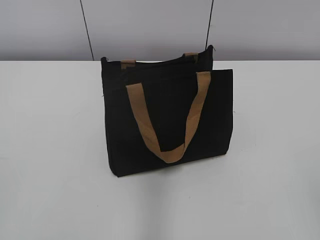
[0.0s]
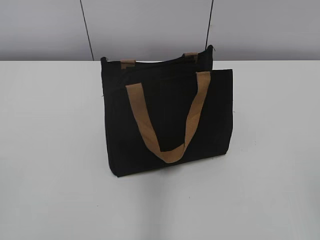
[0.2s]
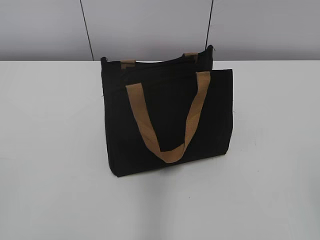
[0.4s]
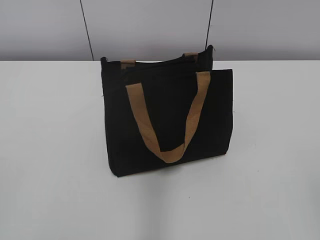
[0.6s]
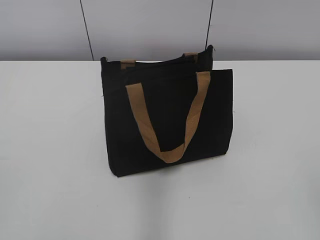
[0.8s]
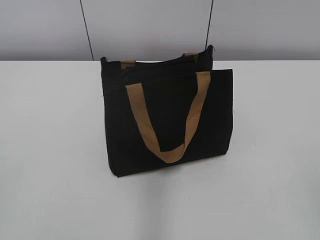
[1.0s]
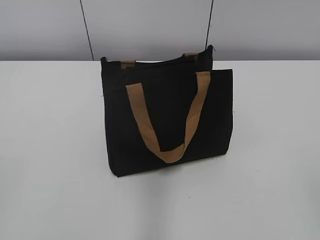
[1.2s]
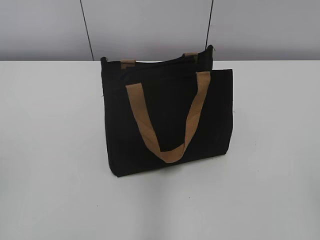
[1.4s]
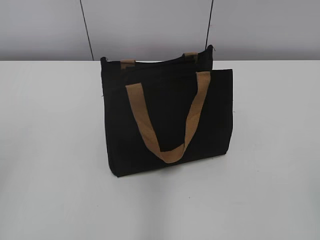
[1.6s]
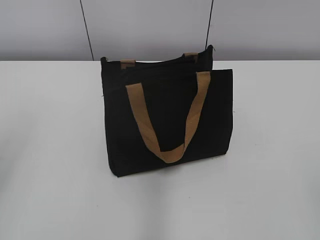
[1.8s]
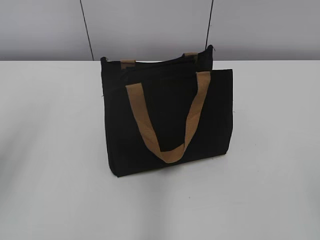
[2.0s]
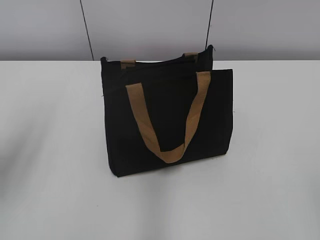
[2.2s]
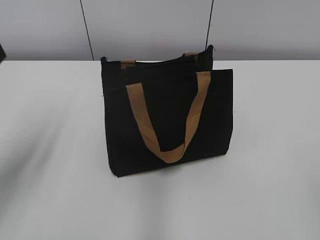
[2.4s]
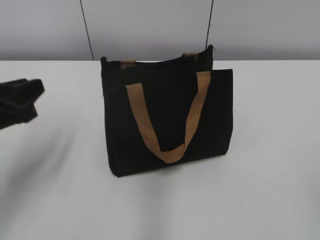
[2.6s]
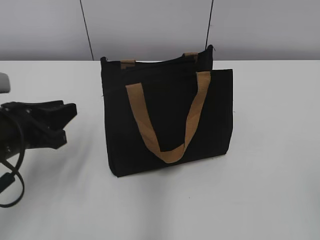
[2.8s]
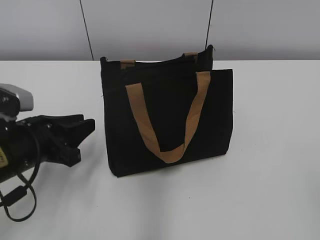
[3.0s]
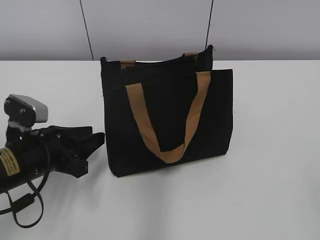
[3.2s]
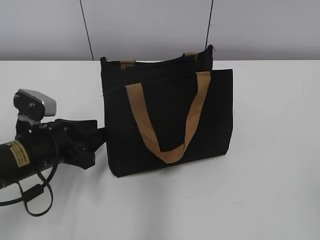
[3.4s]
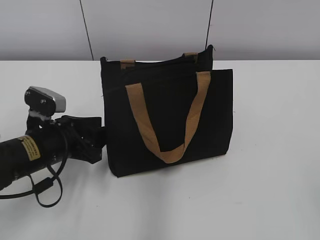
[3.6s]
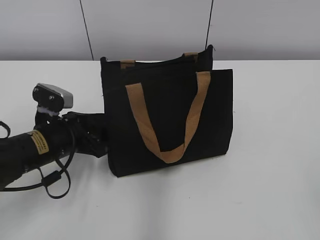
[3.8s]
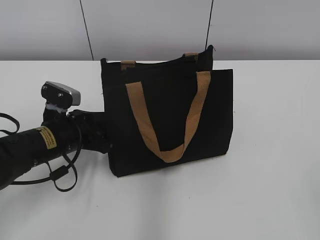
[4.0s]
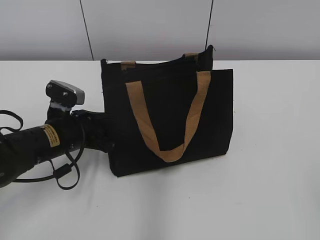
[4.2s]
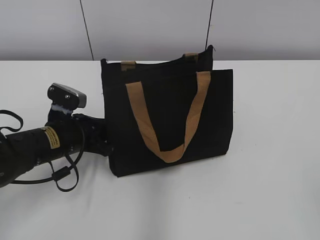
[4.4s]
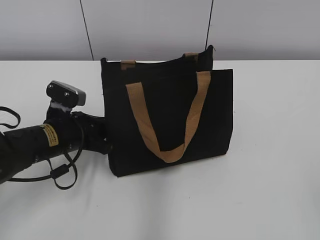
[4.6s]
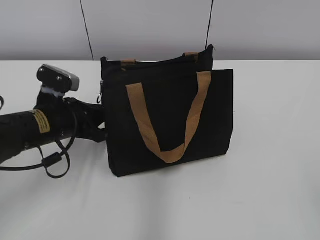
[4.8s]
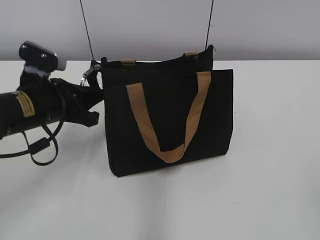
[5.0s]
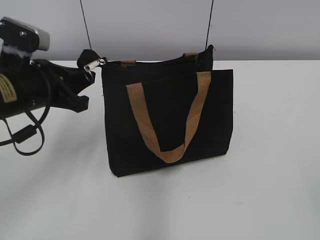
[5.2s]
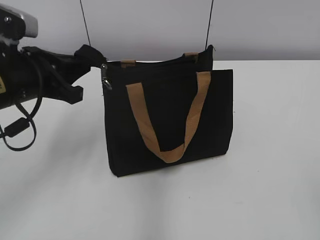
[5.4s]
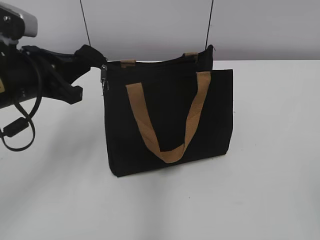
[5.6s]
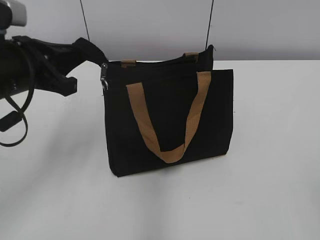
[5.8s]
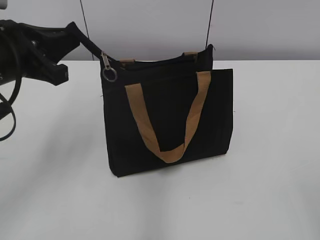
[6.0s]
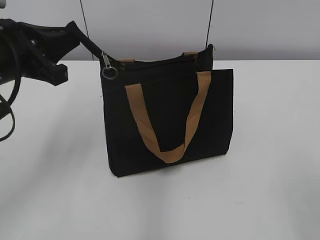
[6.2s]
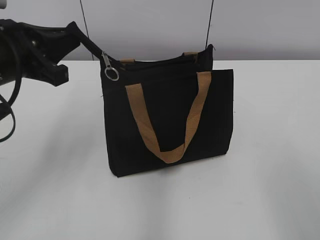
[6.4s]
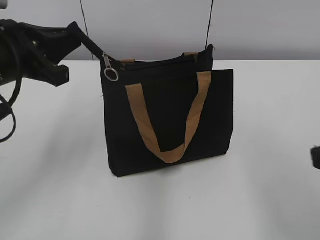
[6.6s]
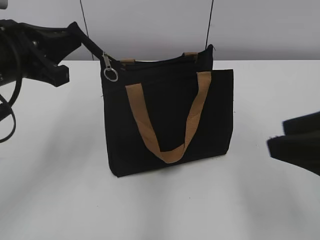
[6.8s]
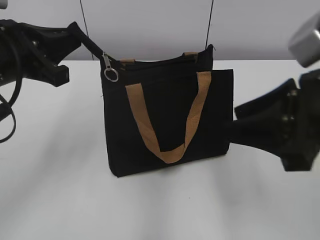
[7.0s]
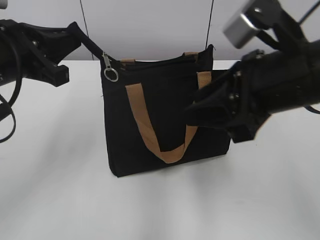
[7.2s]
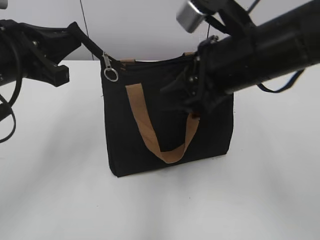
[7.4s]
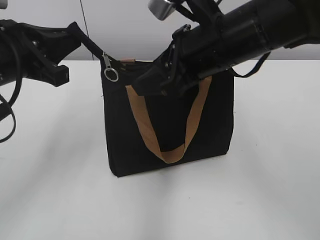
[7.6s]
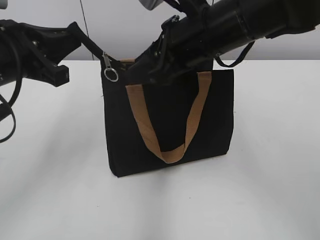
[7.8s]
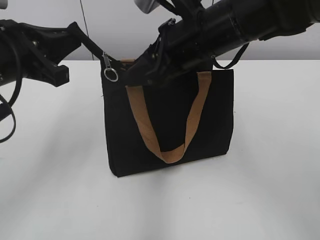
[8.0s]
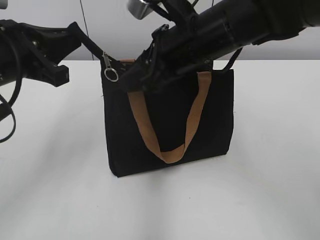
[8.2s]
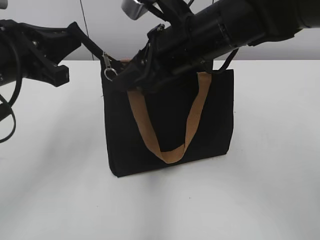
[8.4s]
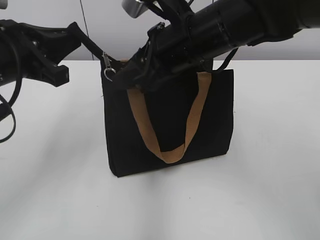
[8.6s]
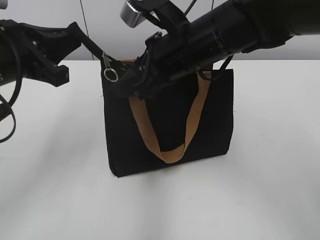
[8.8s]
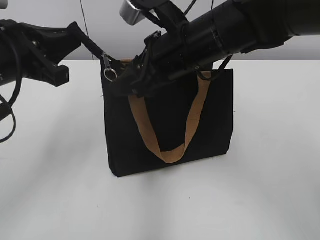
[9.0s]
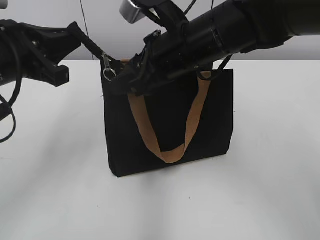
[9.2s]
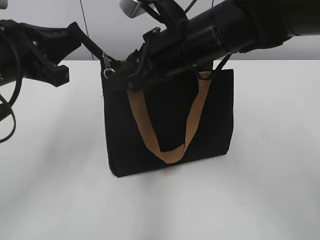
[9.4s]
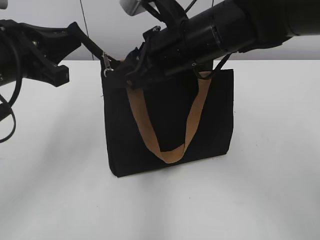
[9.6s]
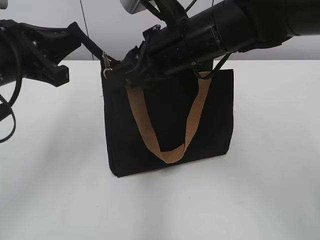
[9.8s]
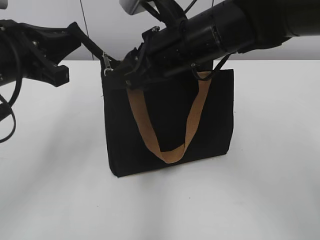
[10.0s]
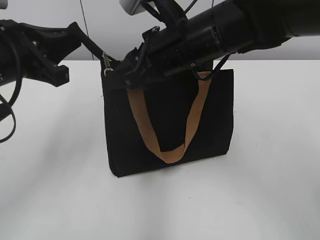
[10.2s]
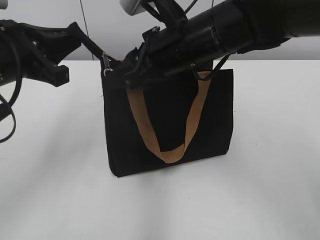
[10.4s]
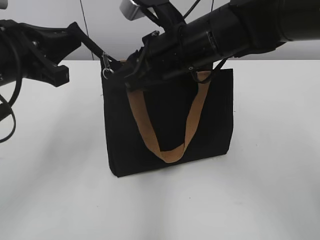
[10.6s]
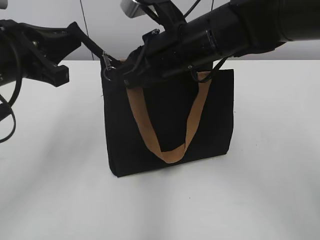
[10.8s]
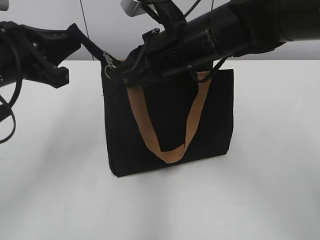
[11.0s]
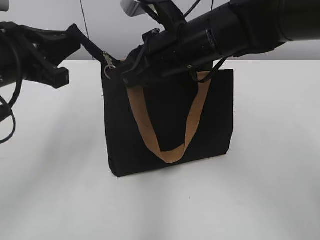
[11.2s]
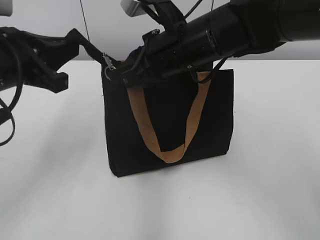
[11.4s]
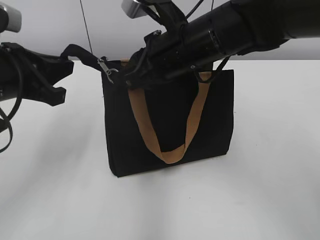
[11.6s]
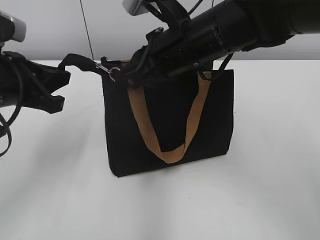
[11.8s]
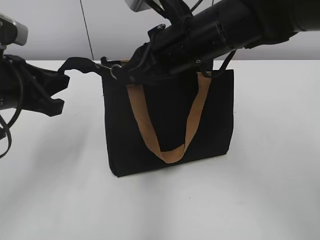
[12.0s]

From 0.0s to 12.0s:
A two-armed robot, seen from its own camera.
From 1.6s to 3.0s: The left gripper travels downward, forward and to the right by roughly 25 cm.
From 3.0s to 4.4s: The left gripper is displaced forward and downward by about 10 cm, and closes up.
From 4.4s to 6.0s: The left gripper shifts some 15 cm upward.
From 6.0s to 7.6s: The right gripper travels forward and to the left by some 35 cm.
From 7.6s to 10.4s: The grippers make only small movements.
From 10.4s to 12.0s: The right gripper closes up.

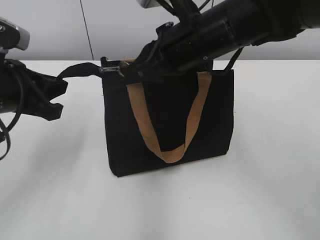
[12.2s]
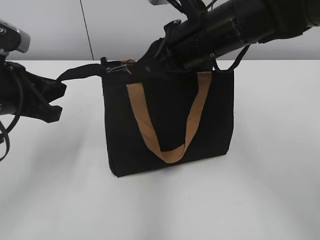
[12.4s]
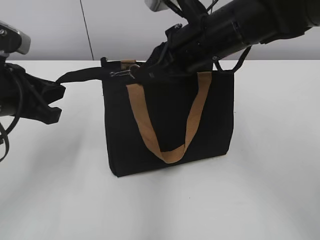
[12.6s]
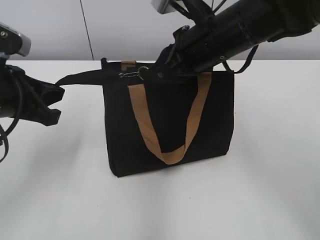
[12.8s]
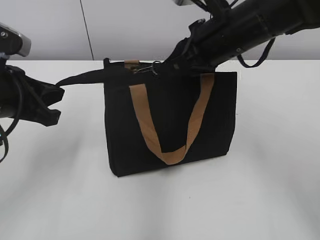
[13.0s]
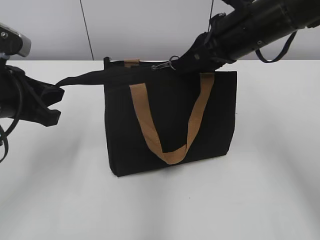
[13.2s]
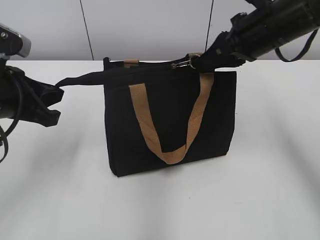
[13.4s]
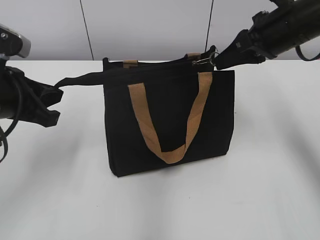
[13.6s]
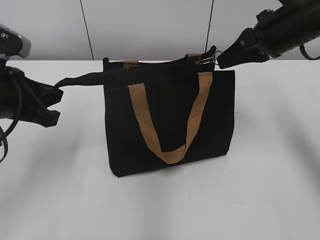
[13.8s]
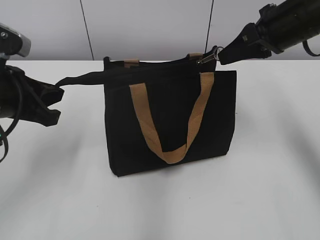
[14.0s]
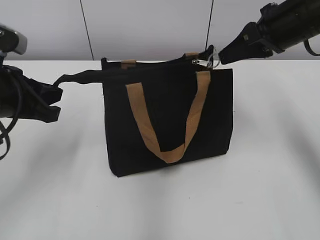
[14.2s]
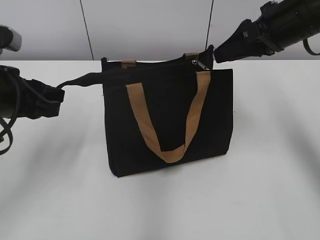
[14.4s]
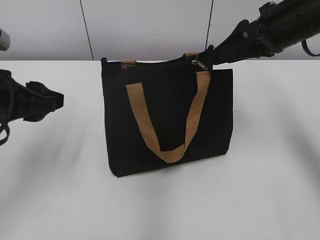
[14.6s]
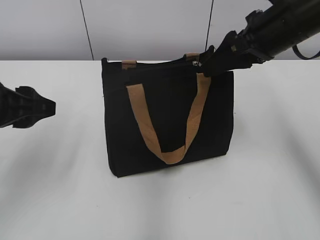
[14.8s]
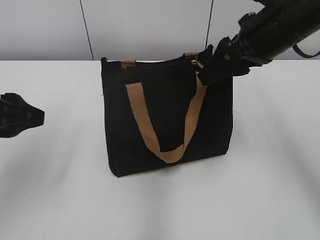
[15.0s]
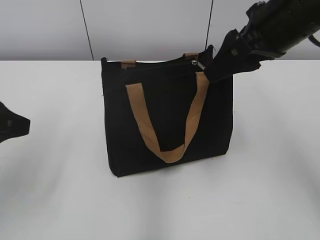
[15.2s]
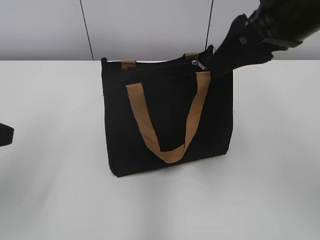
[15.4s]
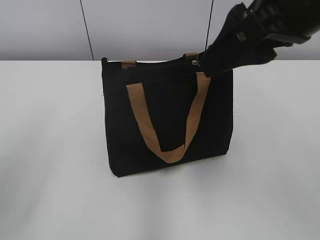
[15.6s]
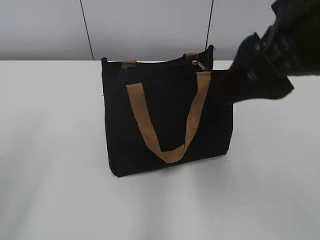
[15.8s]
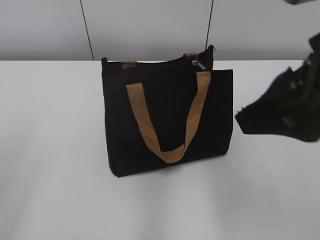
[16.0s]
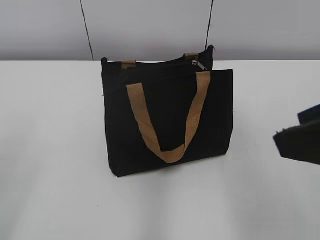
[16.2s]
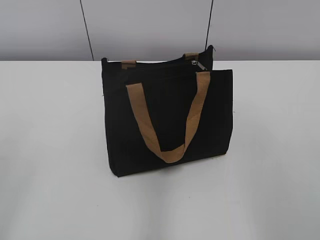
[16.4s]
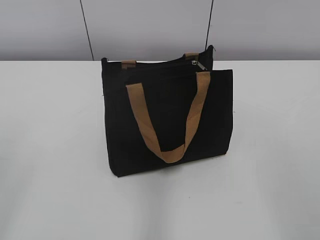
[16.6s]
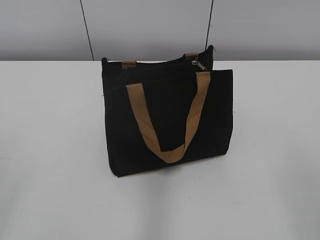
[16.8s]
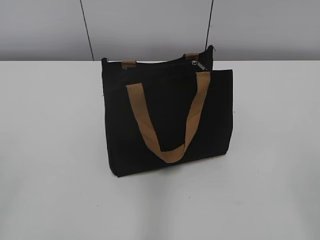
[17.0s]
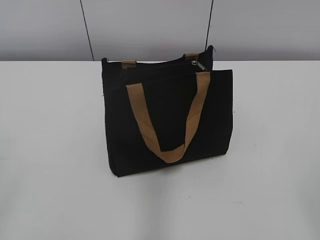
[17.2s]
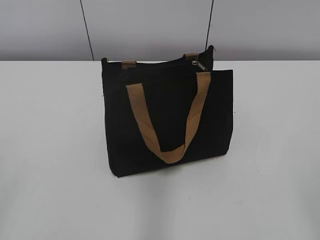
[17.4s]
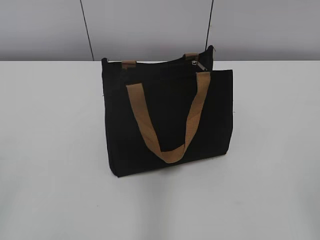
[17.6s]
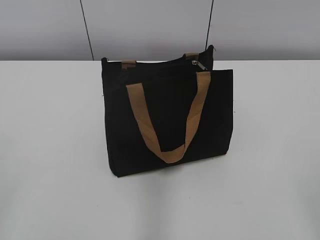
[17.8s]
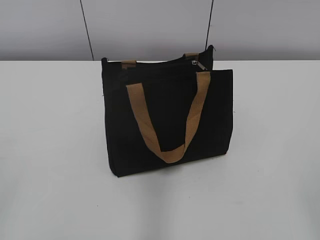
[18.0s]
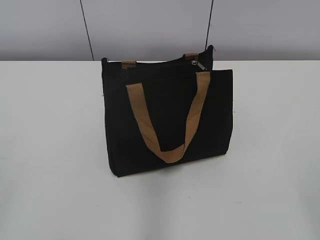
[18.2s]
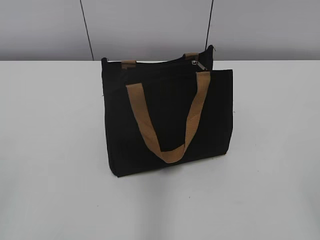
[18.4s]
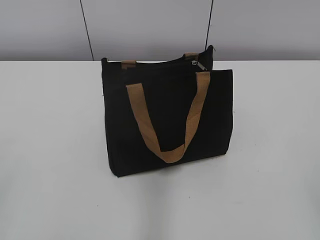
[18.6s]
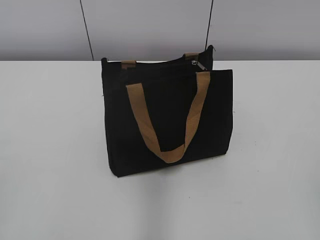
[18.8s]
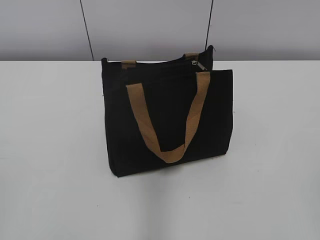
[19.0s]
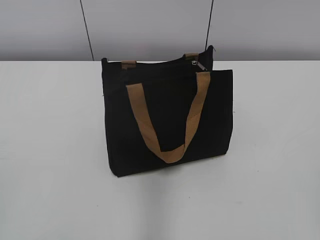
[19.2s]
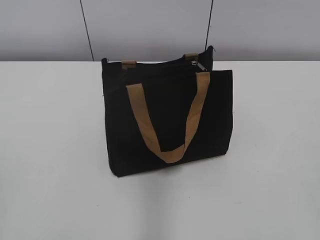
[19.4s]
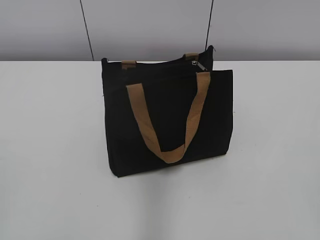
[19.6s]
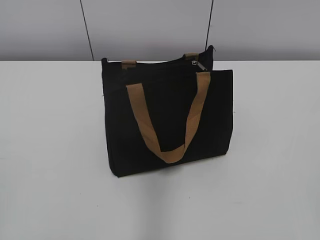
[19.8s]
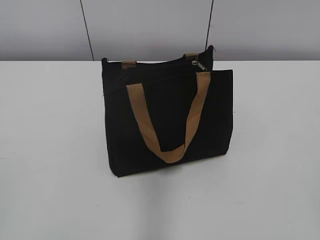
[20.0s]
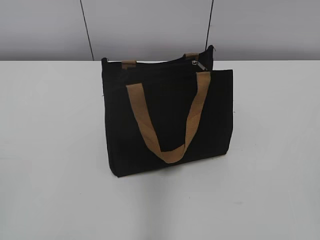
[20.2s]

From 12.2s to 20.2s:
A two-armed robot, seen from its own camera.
Step, from 12.2s to 14.4s: Zip up the bag with your right hand.
From 12.2s to 13.8s: The right gripper is displaced to the right by roughly 15 cm.
From 13.8s to 15.4s: The left gripper moves backward, some 10 cm, and opens. The right gripper heads backward, upward and to the left, covering roughly 10 cm, and opens.
From 15.4s to 17.0s: The right gripper travels backward and to the right by approximately 30 cm, while the left gripper heads backward and to the left, covering about 15 cm.

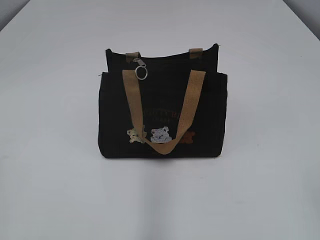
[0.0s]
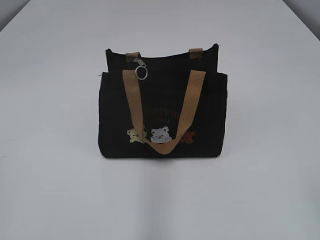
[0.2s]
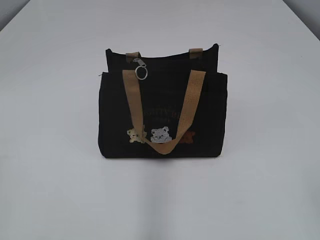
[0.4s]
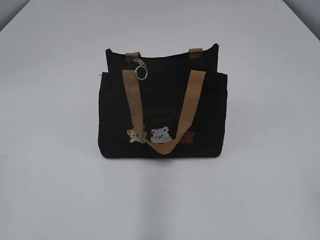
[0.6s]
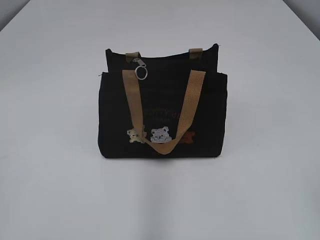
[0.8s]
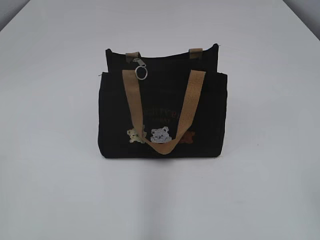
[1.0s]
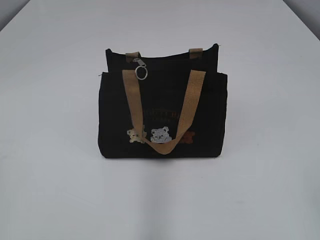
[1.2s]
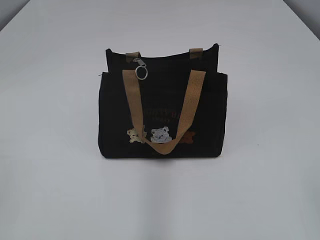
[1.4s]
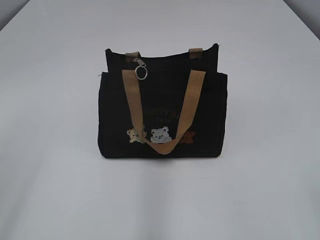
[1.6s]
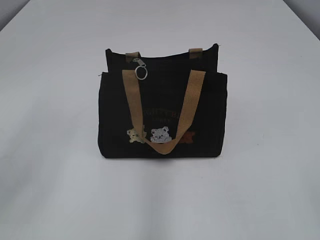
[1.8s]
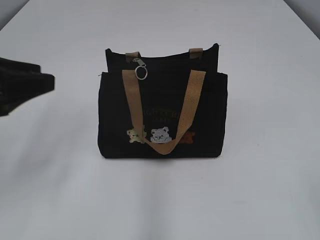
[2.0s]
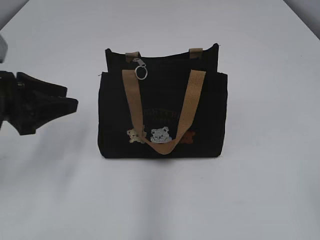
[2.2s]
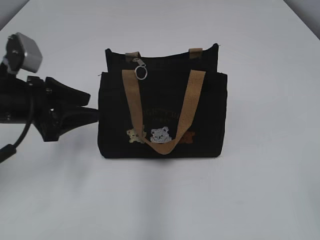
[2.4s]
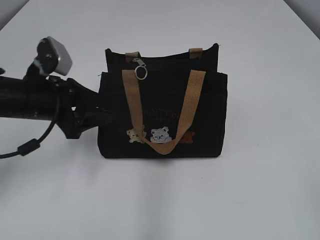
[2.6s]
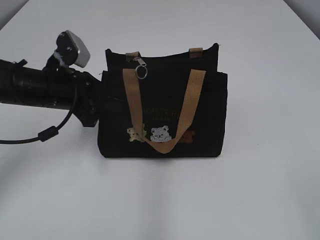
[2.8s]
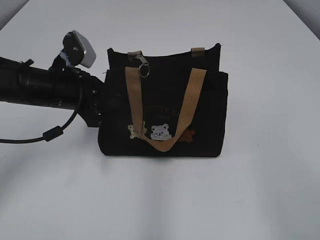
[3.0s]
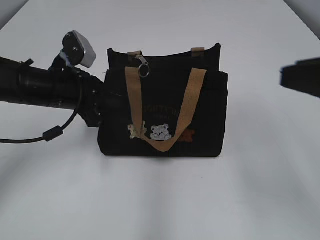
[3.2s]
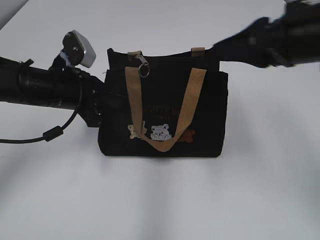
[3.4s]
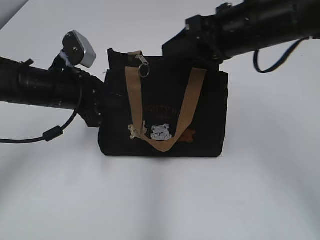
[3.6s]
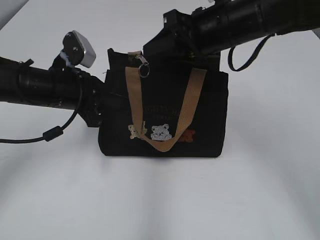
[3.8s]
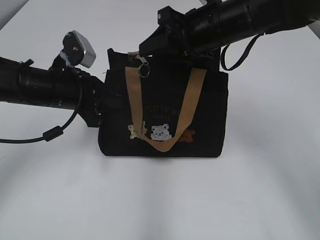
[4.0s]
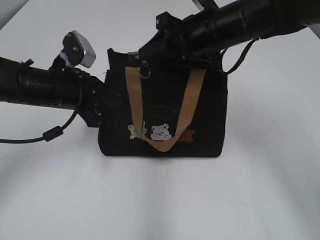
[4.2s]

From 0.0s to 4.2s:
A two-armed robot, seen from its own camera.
From 1.4s to 2.8s: The left gripper is displaced forward by about 30 cm, and opens its fingers.
From 2.8s to 4.2s: The right gripper heads forward and to the left, covering some 40 cm; the left gripper closes up.
